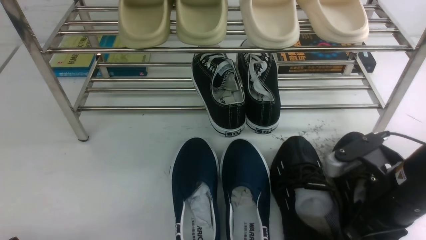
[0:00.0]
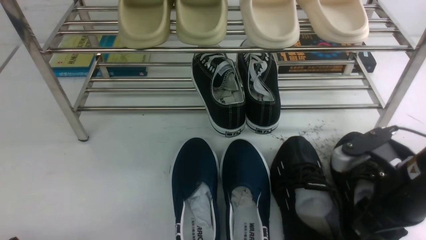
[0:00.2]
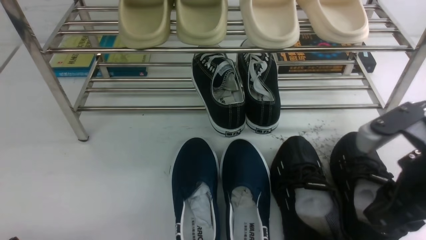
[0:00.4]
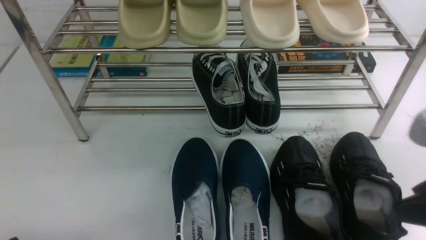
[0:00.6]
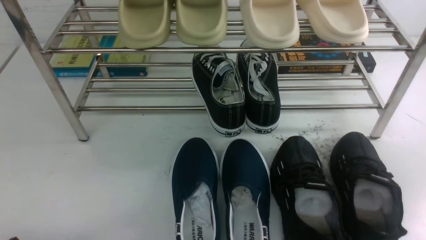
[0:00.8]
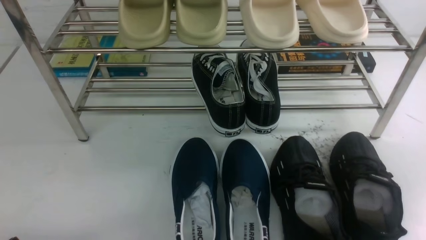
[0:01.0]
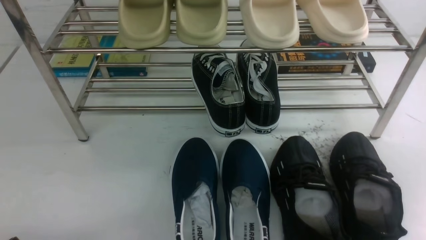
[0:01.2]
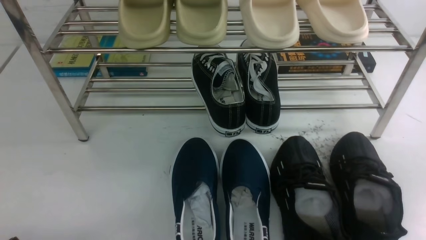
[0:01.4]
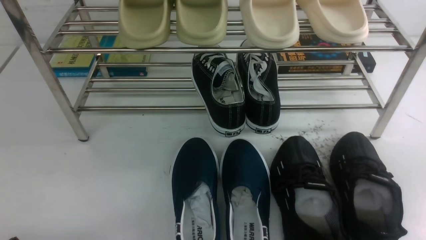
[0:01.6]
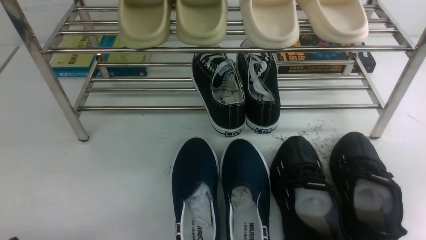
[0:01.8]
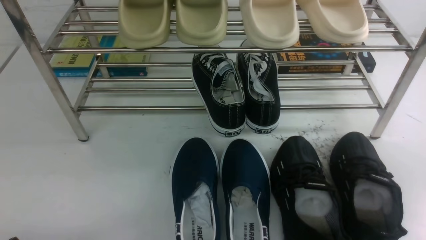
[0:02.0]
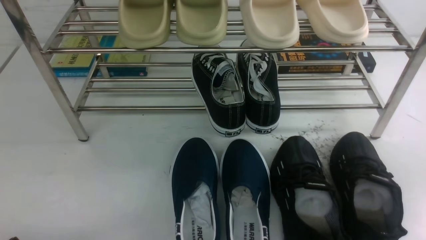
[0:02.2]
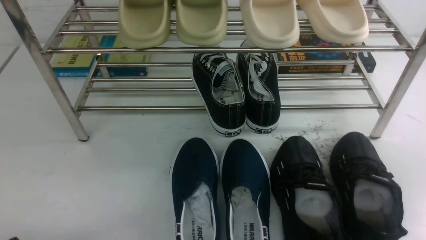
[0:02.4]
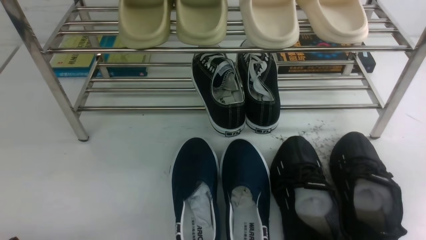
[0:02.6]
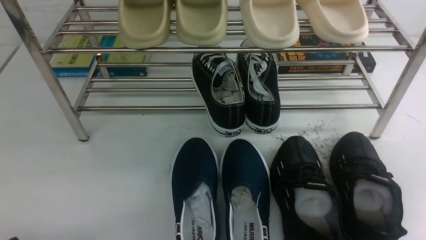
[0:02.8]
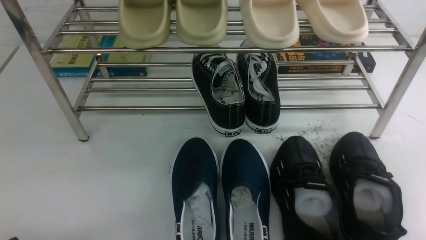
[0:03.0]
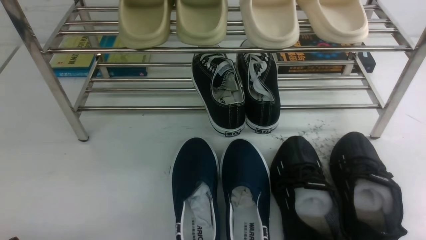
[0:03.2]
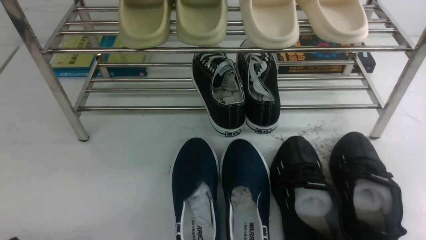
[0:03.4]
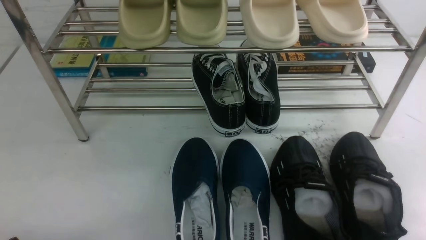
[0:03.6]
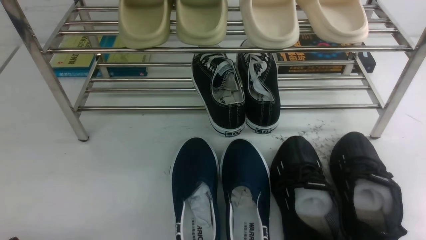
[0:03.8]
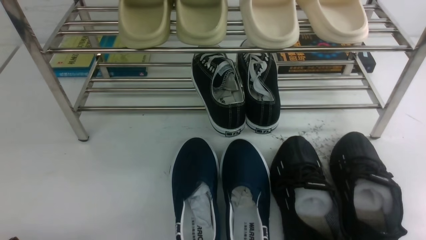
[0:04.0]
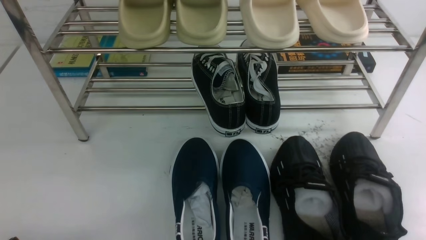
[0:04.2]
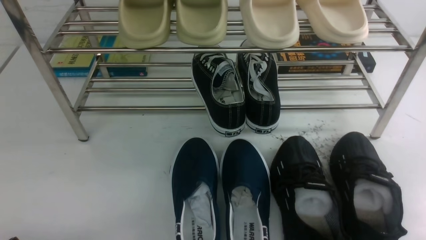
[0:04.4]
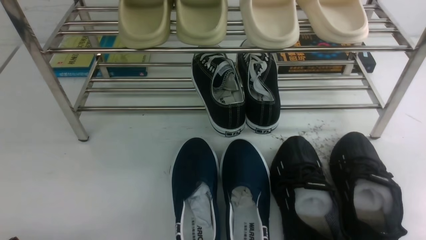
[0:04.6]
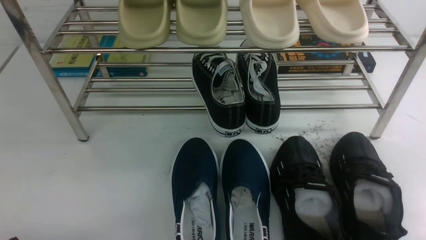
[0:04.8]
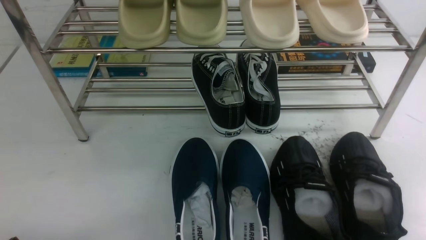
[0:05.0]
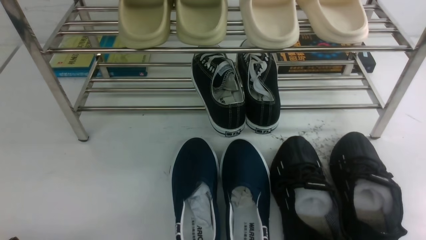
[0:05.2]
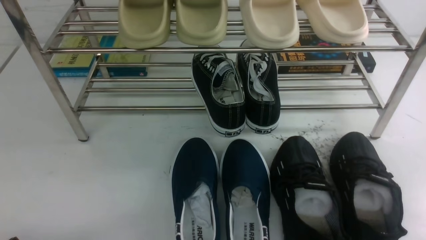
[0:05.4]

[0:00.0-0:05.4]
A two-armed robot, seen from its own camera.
0:00.0 to 0:01.4: The right gripper shifts about 15 cm backward, to the right and upward, and closes.
0:04.0 to 0:05.4: Both grippers stay about where they are.
